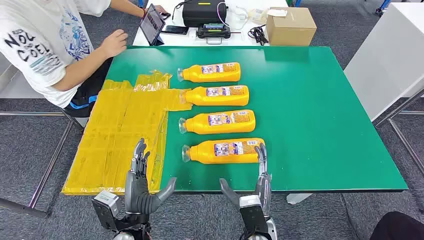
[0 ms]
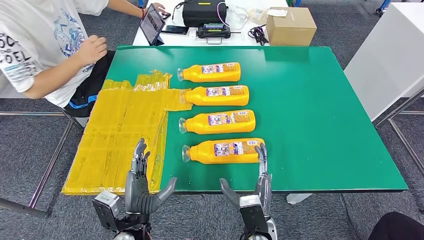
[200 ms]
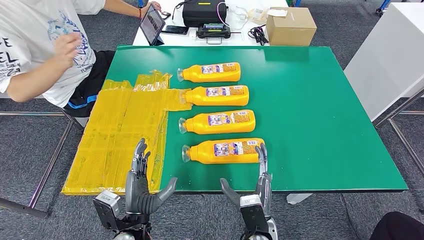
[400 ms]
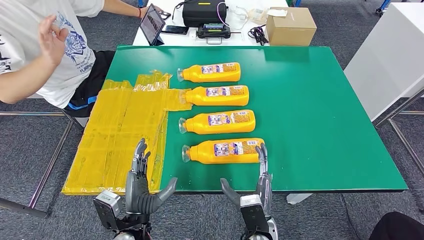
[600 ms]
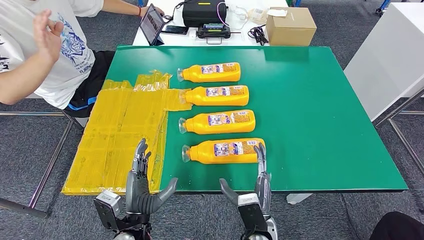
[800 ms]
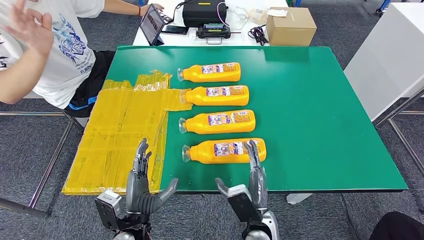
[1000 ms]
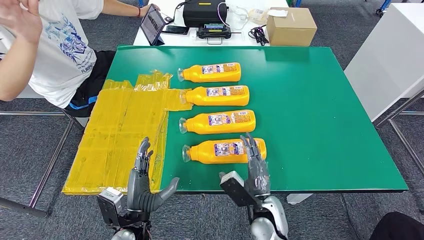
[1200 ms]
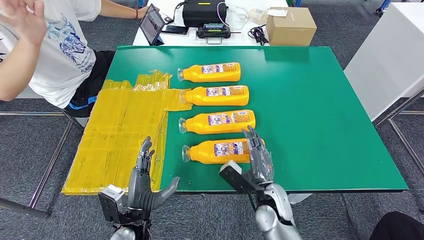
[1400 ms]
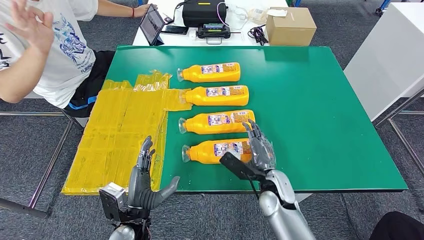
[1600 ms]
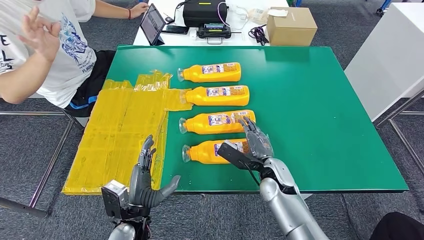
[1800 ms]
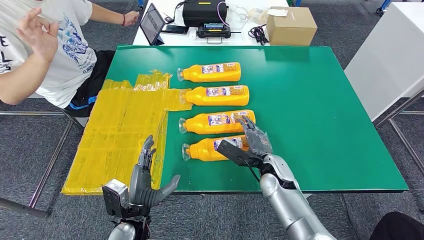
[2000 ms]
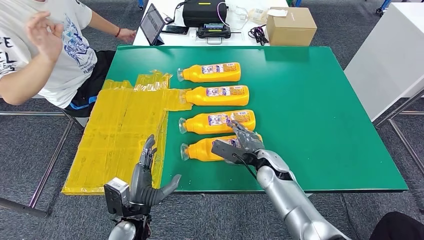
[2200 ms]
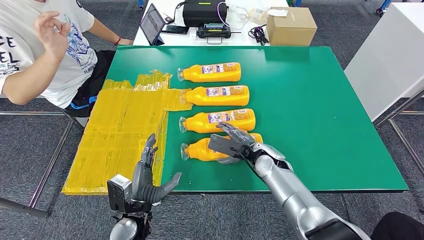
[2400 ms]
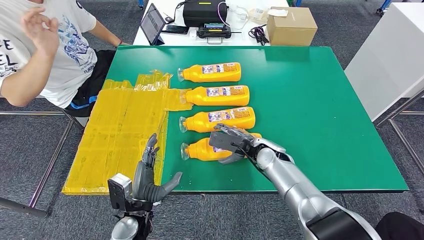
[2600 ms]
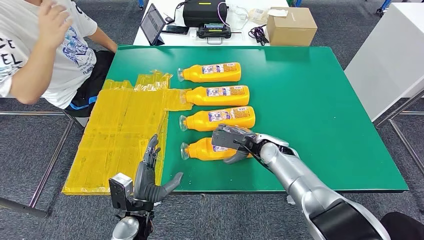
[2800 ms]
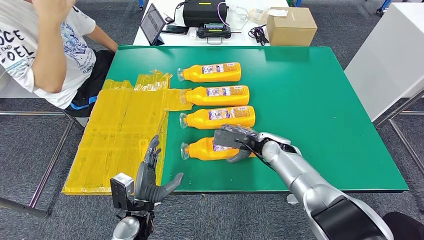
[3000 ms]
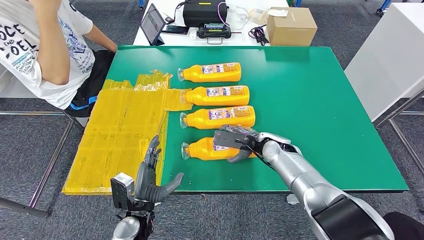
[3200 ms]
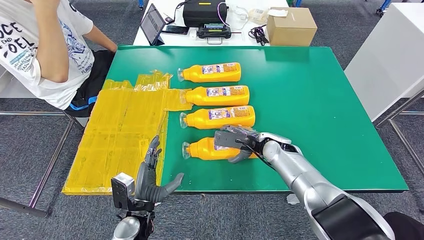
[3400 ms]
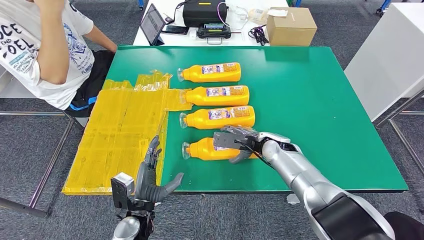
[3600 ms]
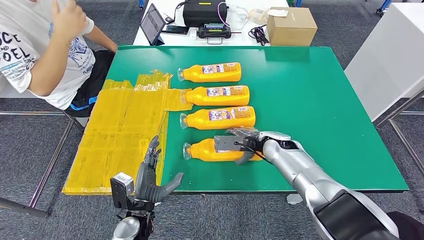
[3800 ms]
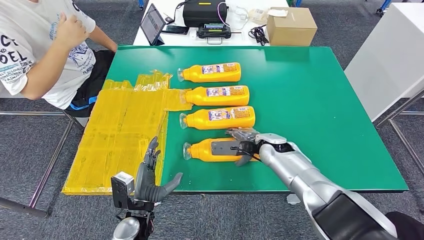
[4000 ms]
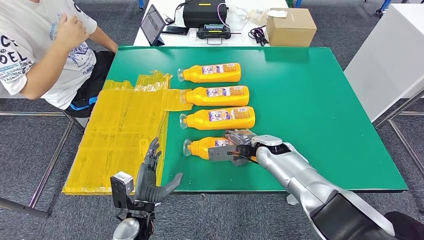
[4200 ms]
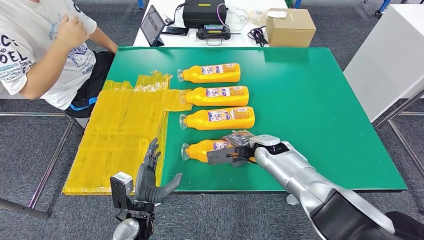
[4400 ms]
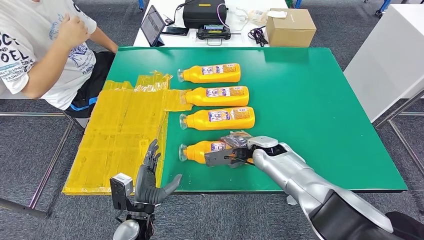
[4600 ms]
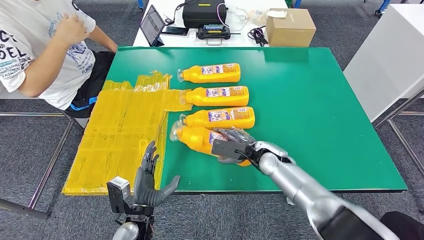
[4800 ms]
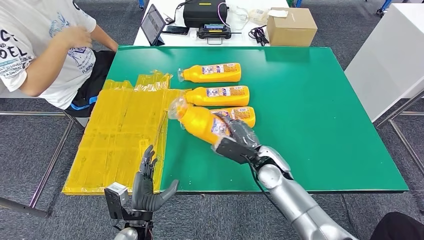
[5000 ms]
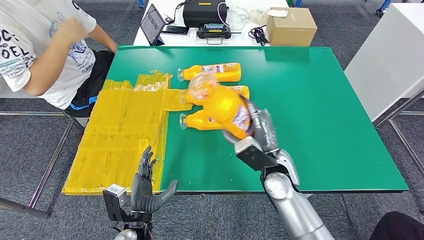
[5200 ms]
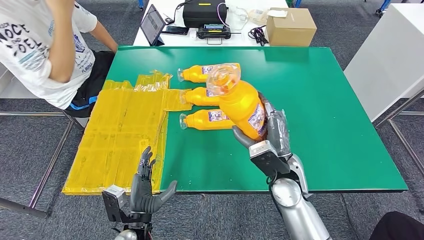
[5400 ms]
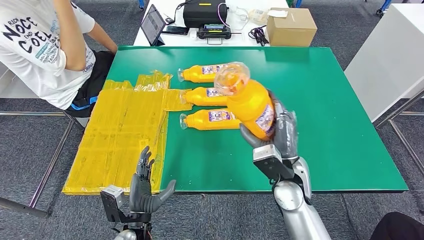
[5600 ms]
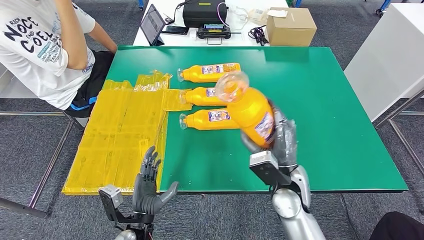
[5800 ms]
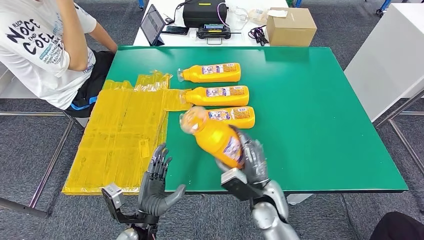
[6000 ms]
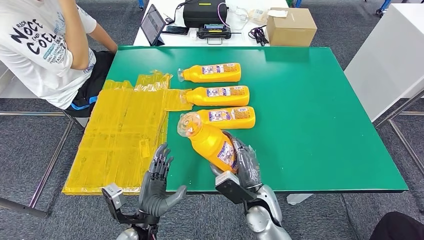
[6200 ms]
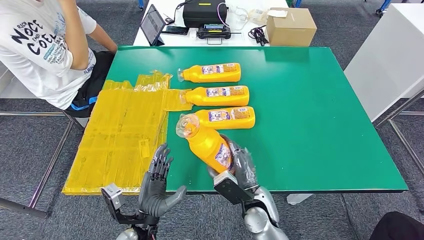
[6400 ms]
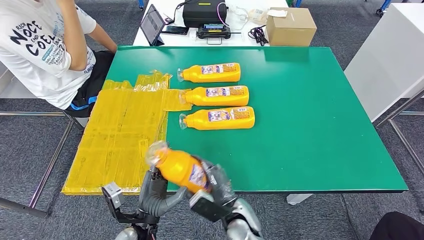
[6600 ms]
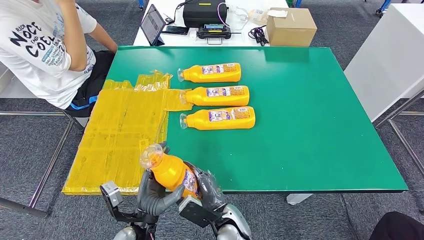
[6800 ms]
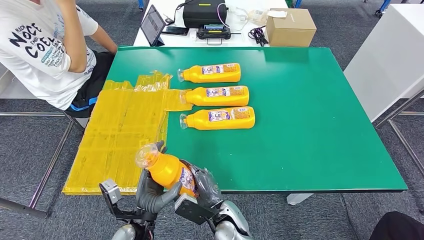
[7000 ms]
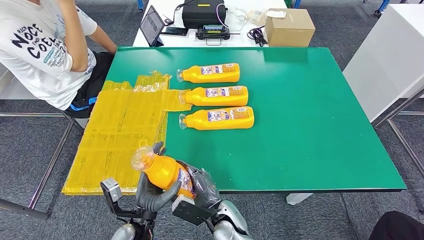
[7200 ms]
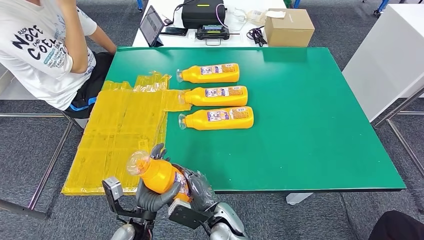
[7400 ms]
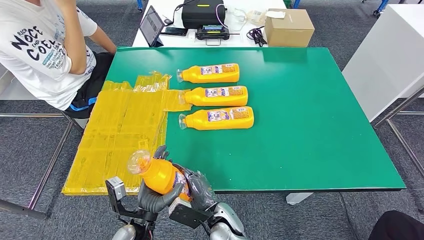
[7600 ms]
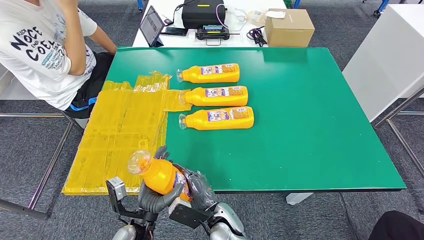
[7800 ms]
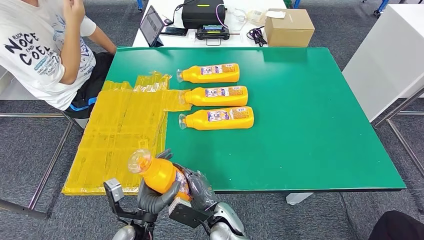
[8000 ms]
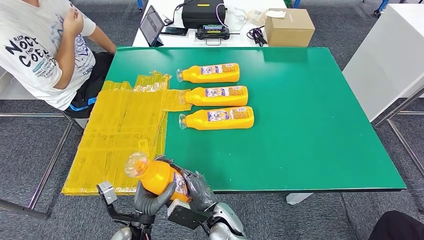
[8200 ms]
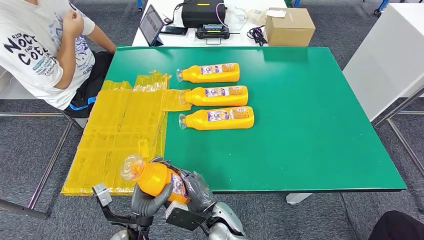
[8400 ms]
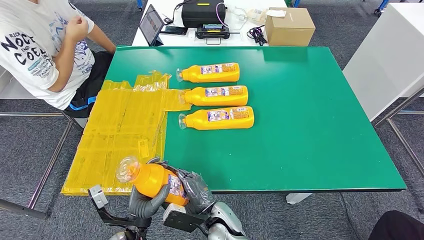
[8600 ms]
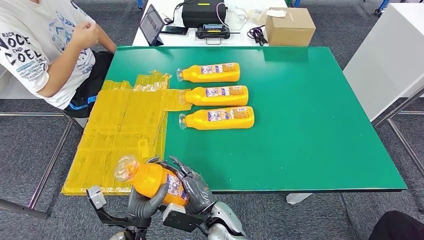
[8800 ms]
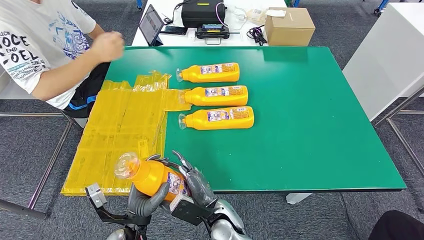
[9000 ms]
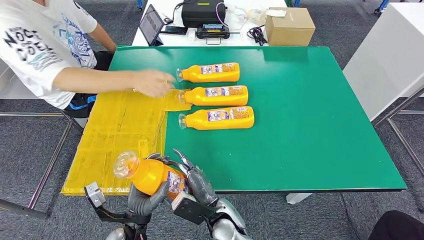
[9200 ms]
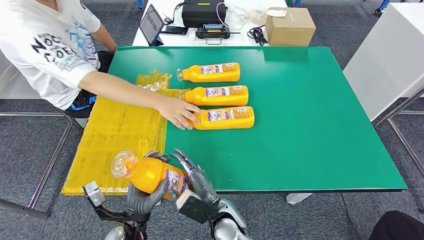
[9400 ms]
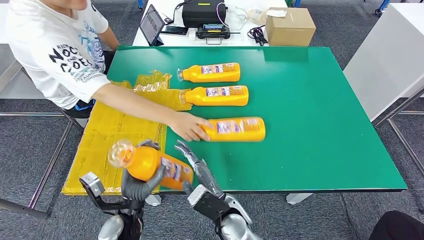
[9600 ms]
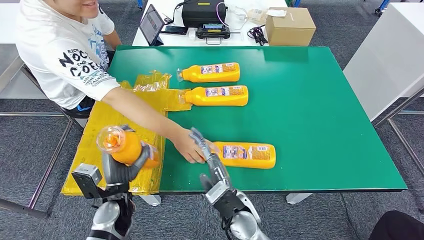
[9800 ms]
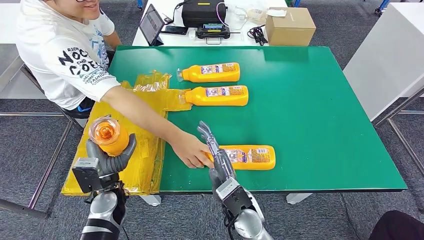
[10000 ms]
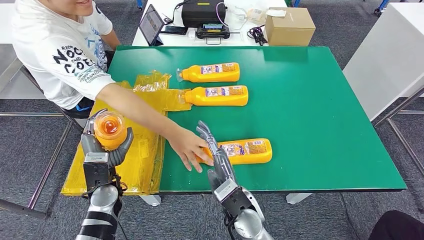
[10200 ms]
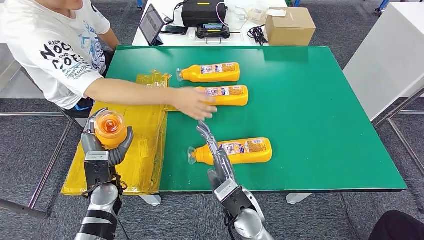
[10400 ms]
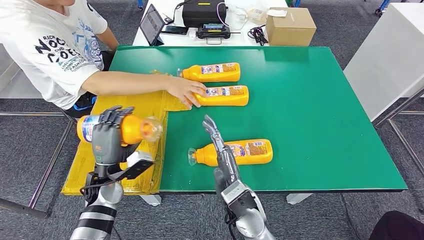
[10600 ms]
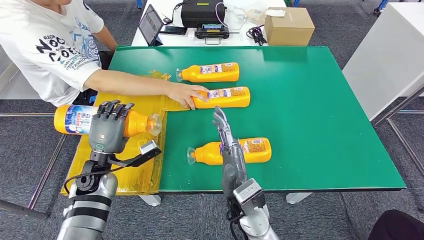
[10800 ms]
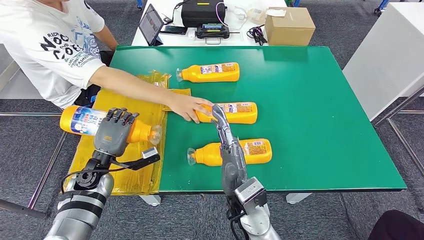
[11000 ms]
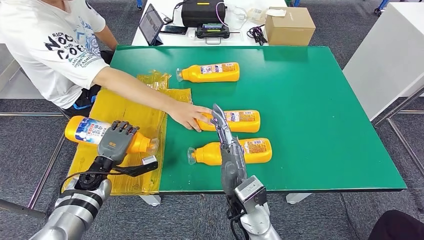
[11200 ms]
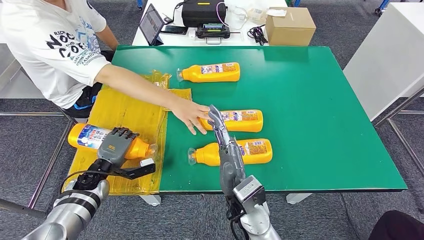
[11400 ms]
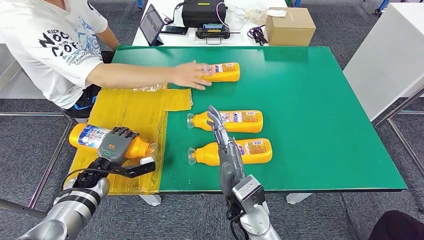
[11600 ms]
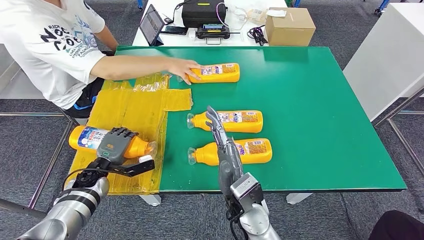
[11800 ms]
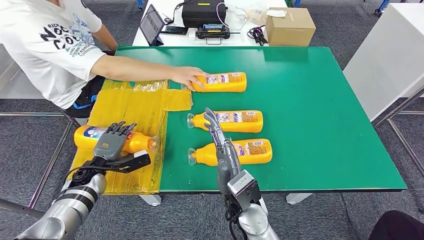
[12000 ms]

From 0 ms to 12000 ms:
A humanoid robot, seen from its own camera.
Step, from 0 ms to 6000 ms: Take the fast-moving consumer goods bottle from the table.
Step, from 6800 ms to 11800 ms: Flip the fast-moving consumer goods bottle to the front side.
From 1600 ms to 3000 ms: The right hand shifts about 10 cm forward.
From 6000 ms to 7600 ms: The right hand is displaced to the left and downward by about 15 cm.
From 7600 ms to 9000 ms: The hands move only a little.

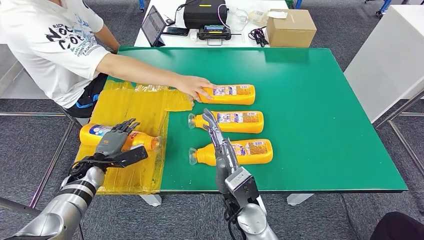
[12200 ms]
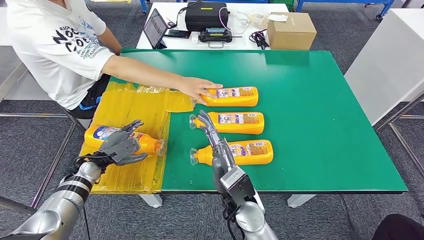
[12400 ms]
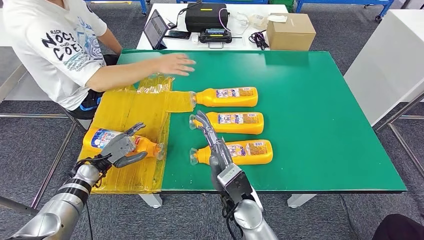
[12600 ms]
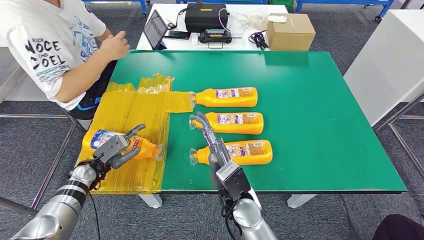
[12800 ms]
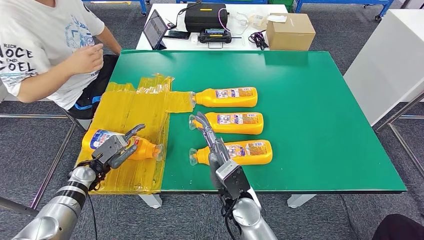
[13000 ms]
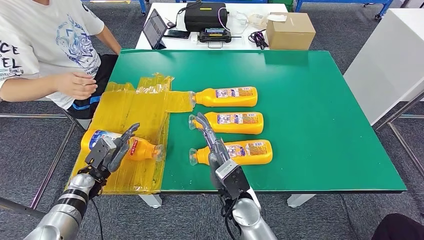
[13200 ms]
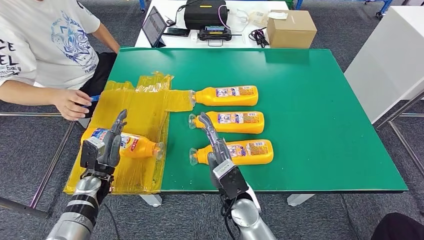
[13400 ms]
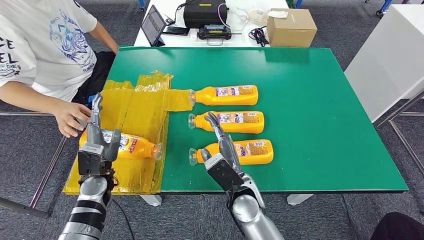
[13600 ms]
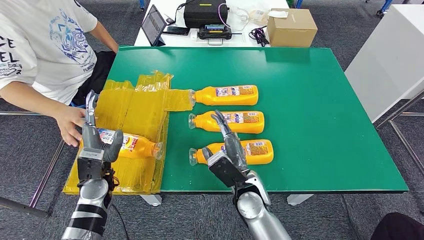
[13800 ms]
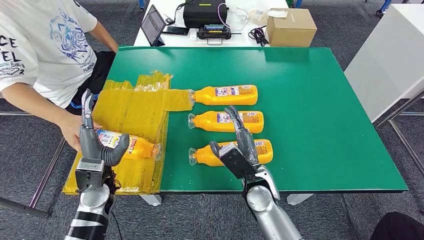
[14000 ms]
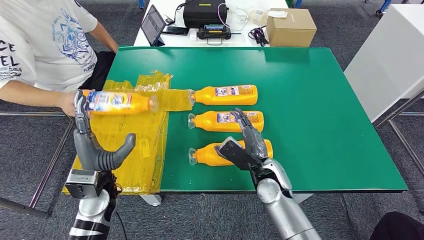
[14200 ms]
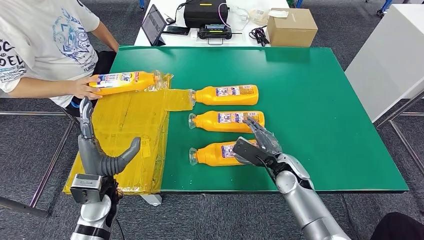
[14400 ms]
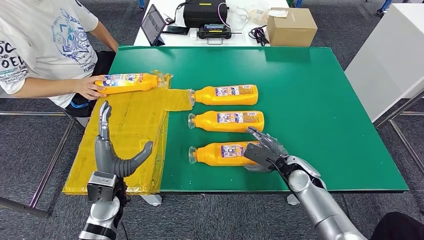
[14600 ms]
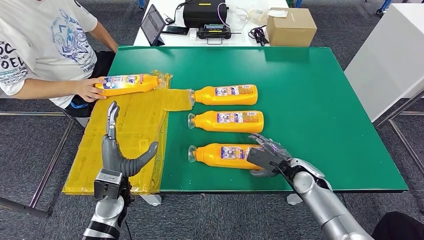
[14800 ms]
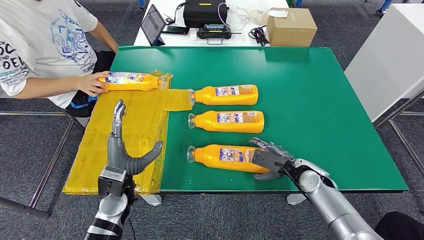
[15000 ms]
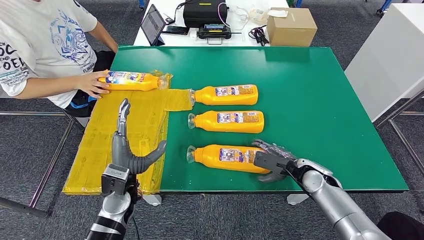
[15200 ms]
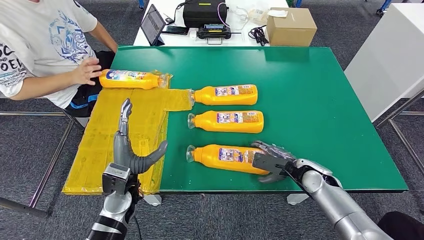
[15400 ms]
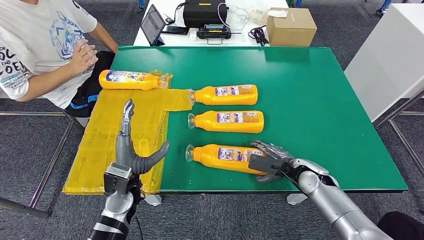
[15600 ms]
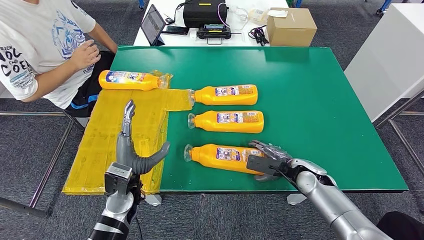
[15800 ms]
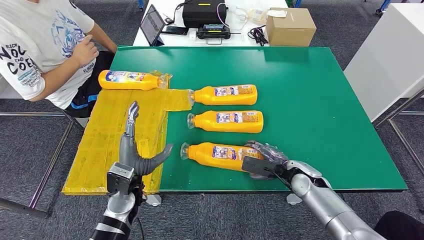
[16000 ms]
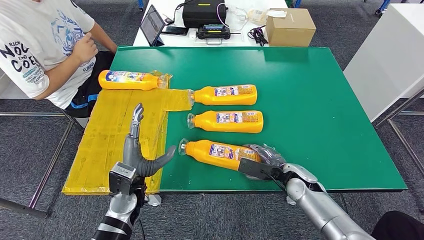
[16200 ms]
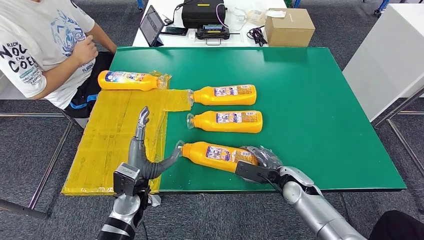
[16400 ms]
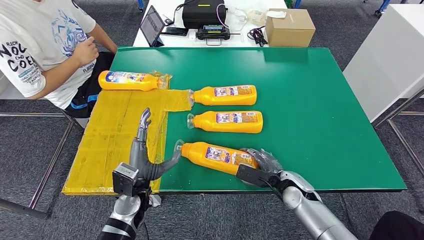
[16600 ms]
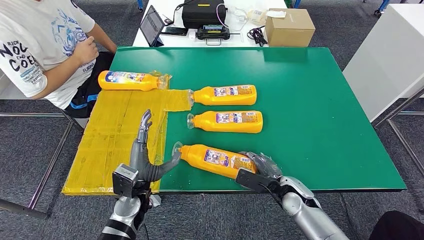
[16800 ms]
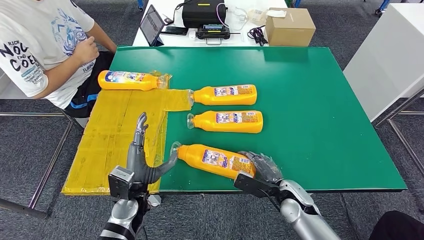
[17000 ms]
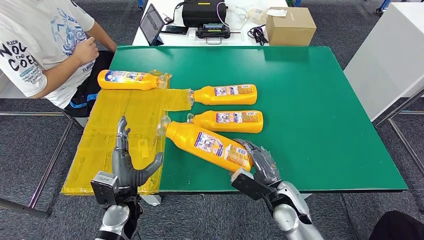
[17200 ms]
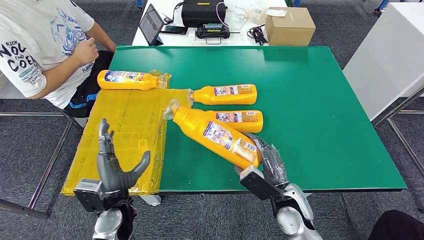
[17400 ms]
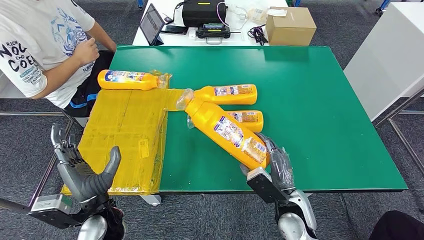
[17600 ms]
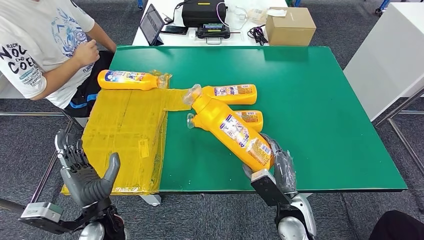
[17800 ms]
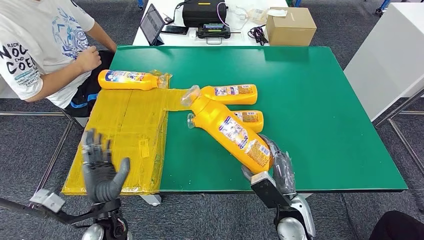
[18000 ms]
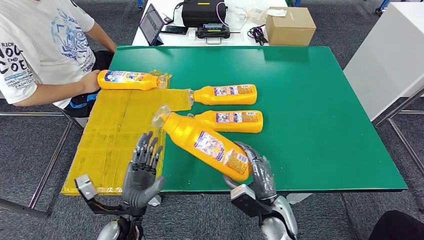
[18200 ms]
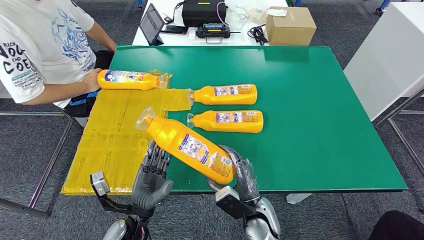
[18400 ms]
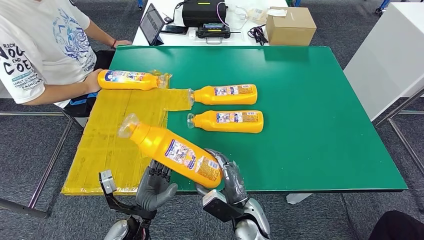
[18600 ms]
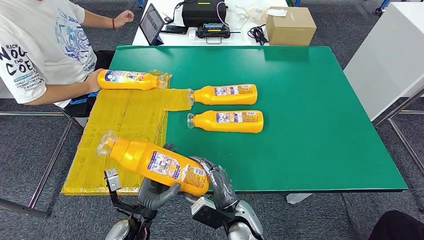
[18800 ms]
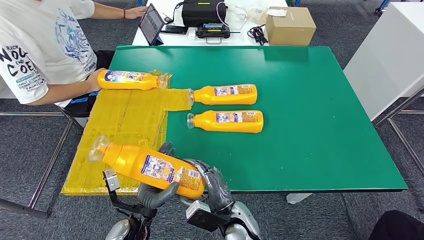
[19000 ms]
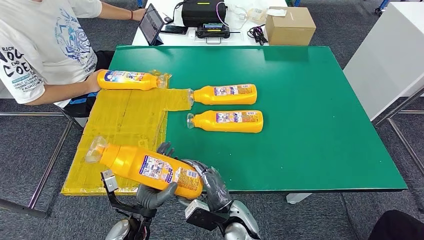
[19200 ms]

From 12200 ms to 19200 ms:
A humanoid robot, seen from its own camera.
From 15000 ms to 16400 ms: The right hand changes place by about 5 cm.
From 16400 ms to 17800 ms: The right hand goes some 10 cm backward, upward and to the left, while the left hand goes some 5 cm backward.
